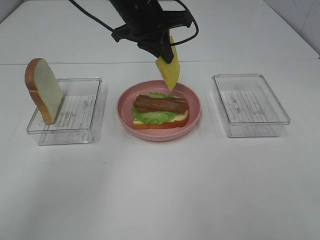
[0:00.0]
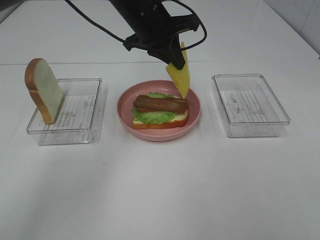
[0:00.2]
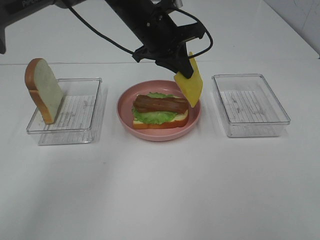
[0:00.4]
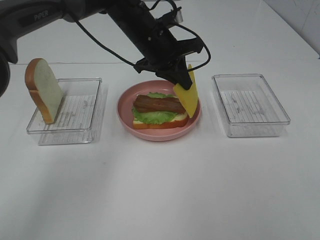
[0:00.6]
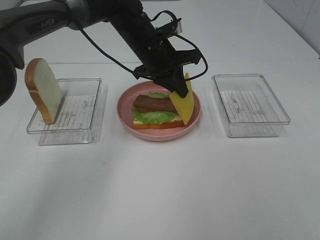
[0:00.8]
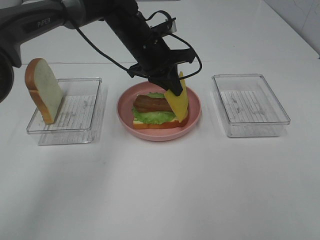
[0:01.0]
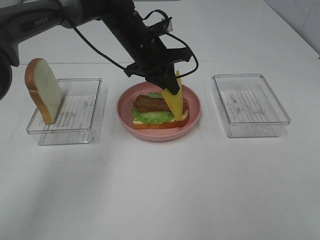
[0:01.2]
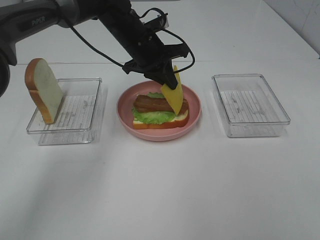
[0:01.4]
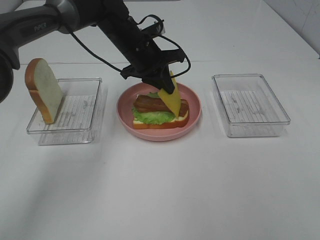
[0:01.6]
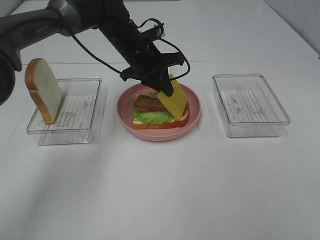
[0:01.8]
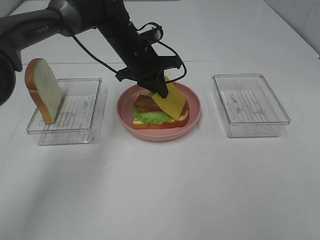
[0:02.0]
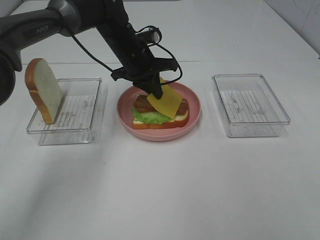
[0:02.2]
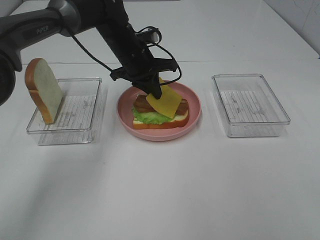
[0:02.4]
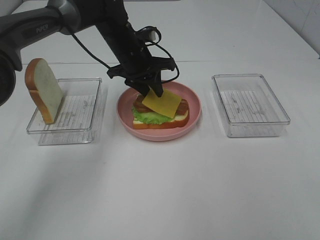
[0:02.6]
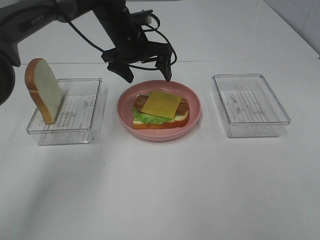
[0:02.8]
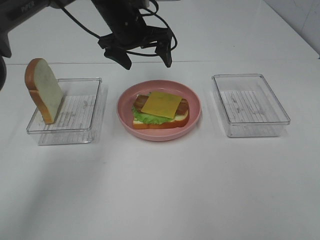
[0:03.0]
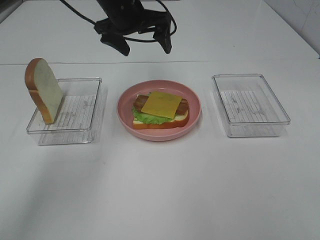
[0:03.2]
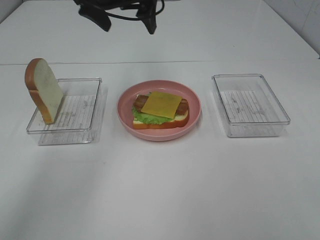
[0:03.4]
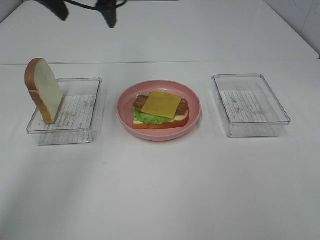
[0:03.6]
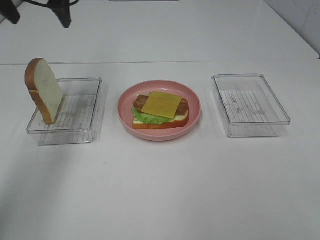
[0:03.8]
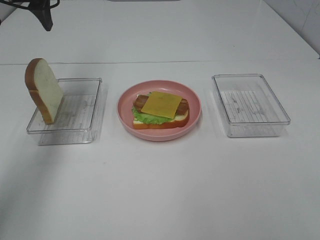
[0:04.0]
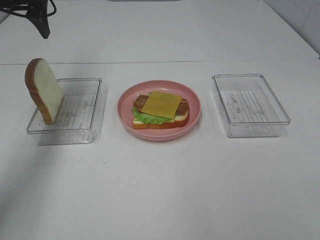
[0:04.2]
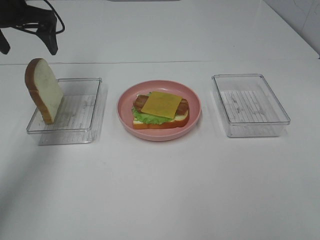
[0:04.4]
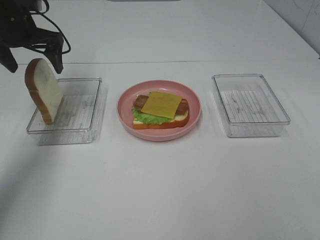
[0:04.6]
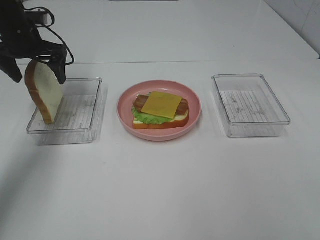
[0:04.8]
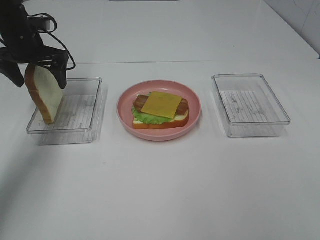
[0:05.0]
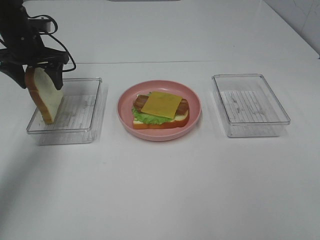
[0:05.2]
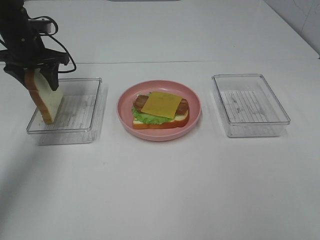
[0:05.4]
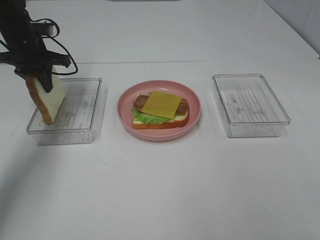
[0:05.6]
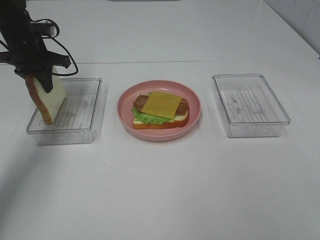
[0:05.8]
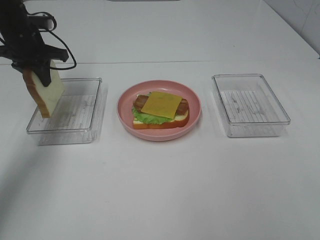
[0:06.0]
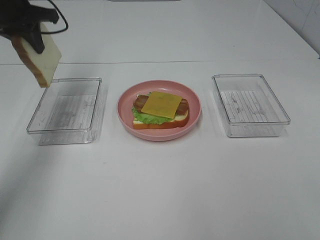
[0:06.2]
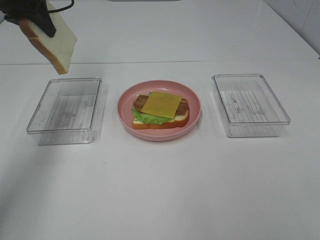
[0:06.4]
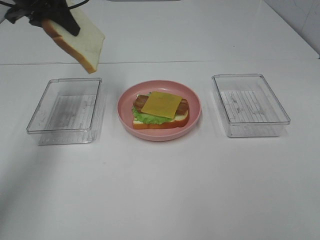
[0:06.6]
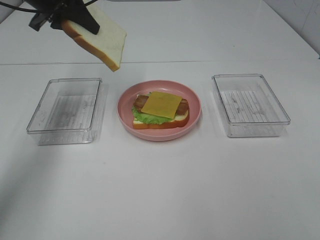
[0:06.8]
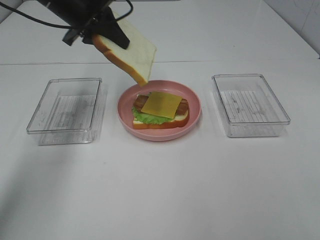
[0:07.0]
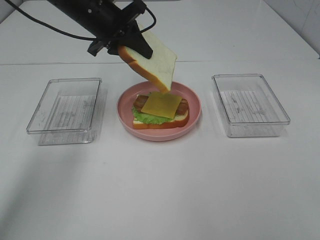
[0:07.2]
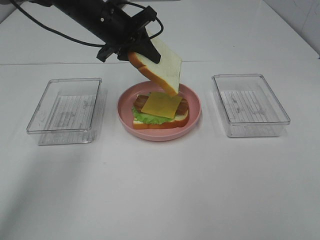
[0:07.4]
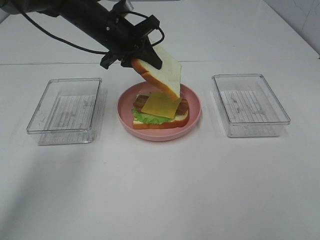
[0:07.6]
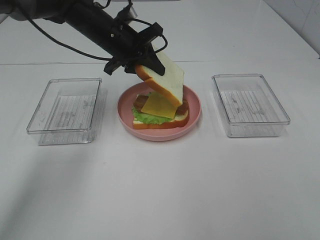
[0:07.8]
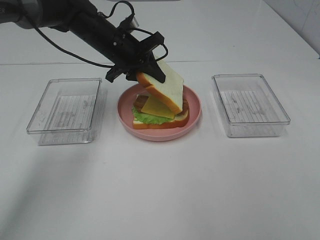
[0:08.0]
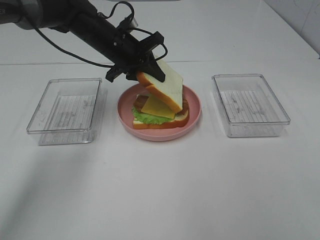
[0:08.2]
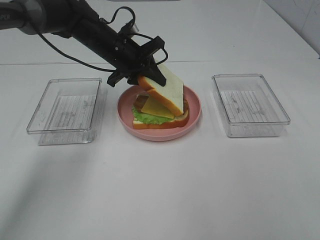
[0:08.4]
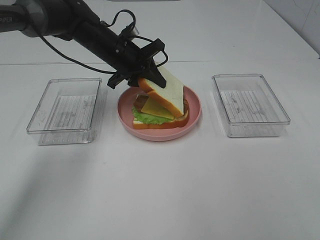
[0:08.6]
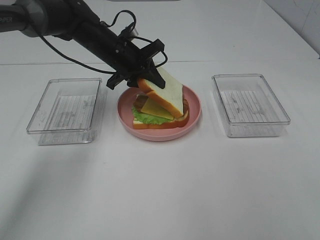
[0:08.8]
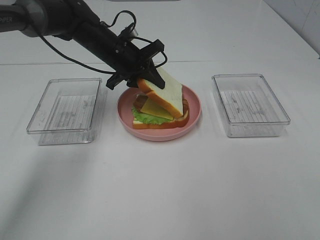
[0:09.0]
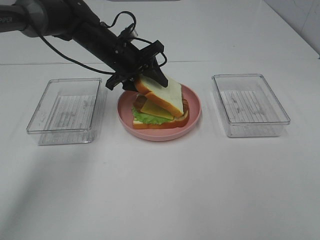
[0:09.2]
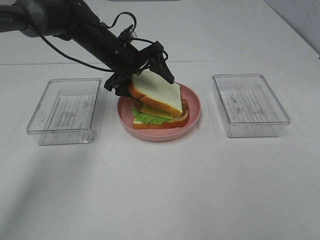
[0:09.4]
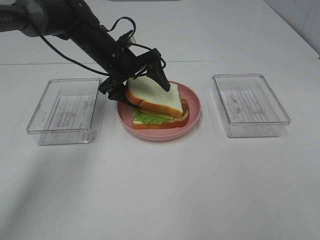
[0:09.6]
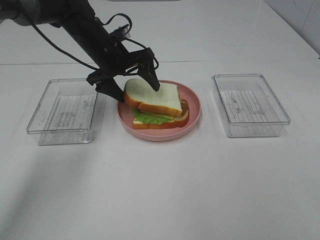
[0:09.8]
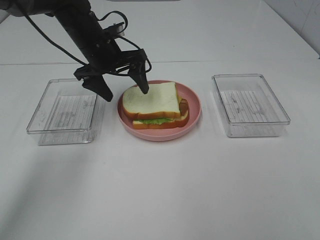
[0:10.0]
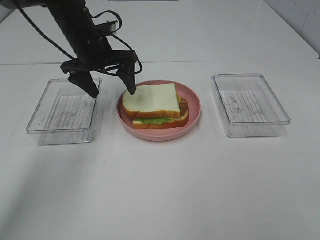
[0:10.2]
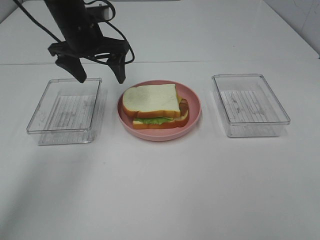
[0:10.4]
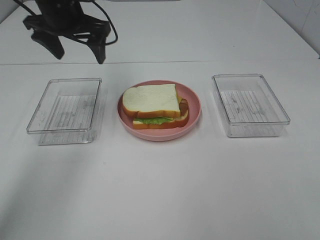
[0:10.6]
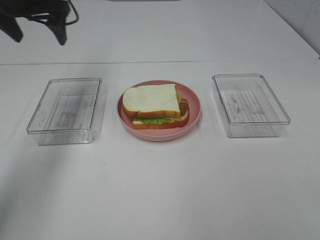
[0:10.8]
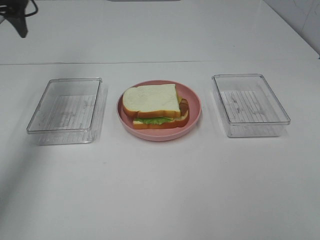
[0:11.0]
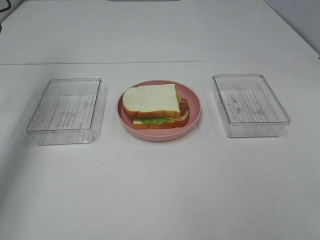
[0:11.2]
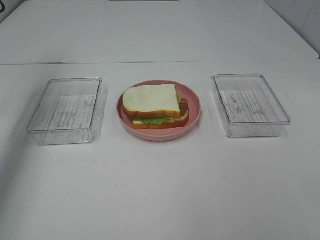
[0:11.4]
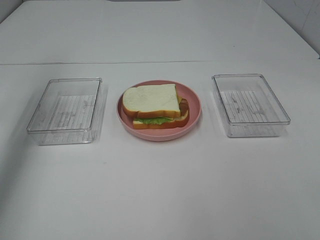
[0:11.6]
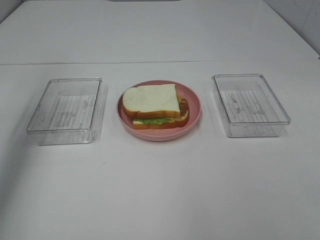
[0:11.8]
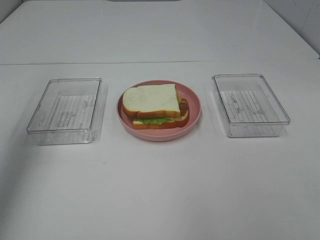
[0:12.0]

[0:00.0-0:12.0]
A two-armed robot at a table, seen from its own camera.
Task of the whole recording: Make sandwiches.
Step, 0:00.0 to 0:03.0: Left hand:place the cheese slice on top of the bacon.
Step, 0:03.2 to 0:05.6: Left hand:grab the bread slice.
Step, 0:05.8 to 0:10.0: Left hand:place the bread slice on the cheese slice.
0:00.0 to 0:01.6: The left gripper heads downward, covering some 10 cm.
0:01.6 to 0:03.0: The left gripper moves upward, some 5 cm, and opens.
0:03.0 to 0:04.4: The left gripper heads to the left, covering about 20 cm.
0:04.4 to 0:06.0: The left gripper is displaced downward by some 5 cm, and closes.
0:06.0 to 0:07.6: The left gripper moves to the right, approximately 15 cm.
0:07.6 to 0:09.0: The grippers move only a little.
0:09.0 to 0:10.4: The left gripper is displaced upward and to the left by approximately 10 cm, and opens up.
0:10.4 to 0:12.0: The left gripper heads to the left, backward and upward, covering some 30 cm.

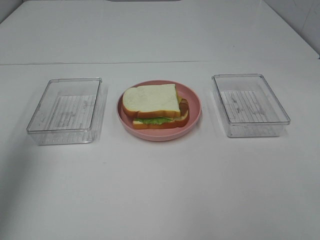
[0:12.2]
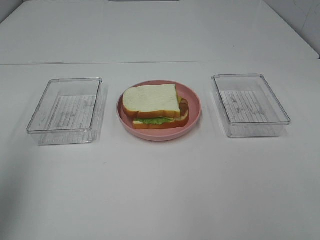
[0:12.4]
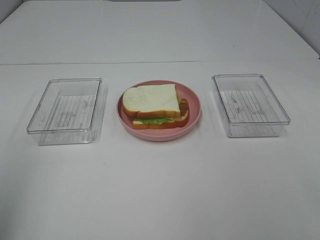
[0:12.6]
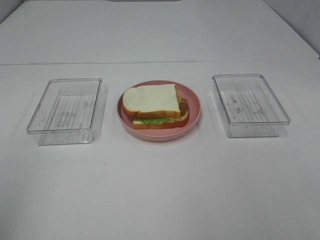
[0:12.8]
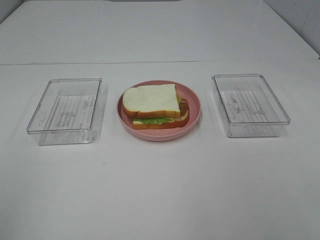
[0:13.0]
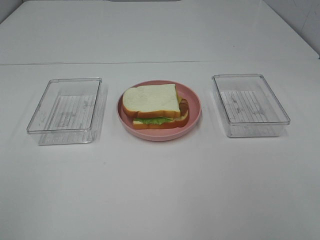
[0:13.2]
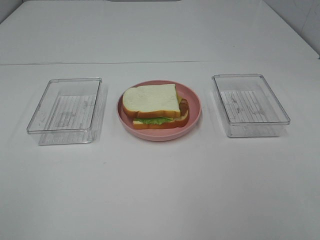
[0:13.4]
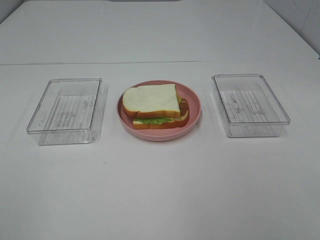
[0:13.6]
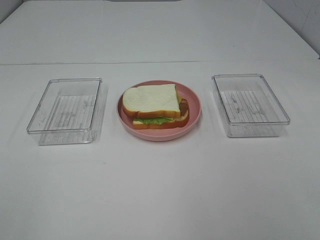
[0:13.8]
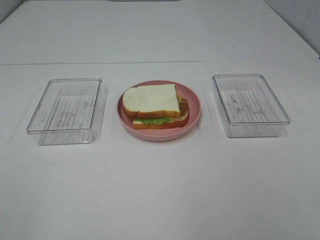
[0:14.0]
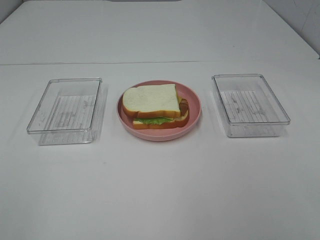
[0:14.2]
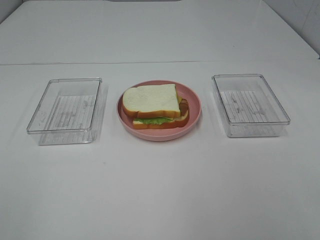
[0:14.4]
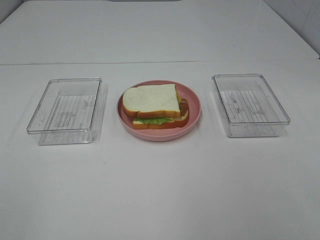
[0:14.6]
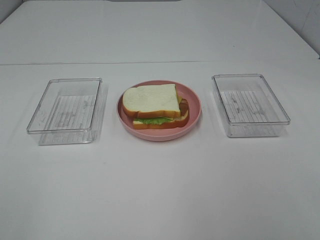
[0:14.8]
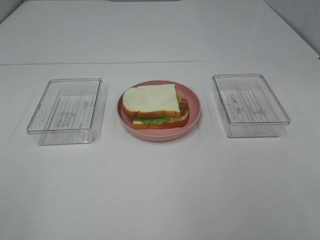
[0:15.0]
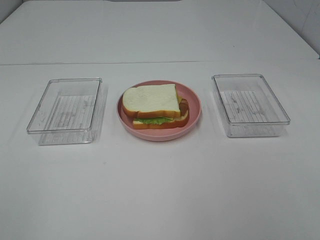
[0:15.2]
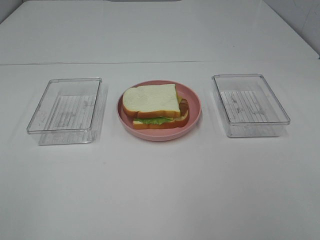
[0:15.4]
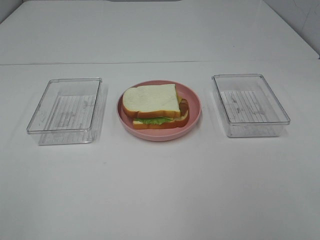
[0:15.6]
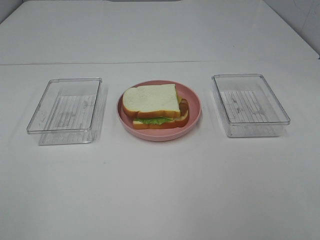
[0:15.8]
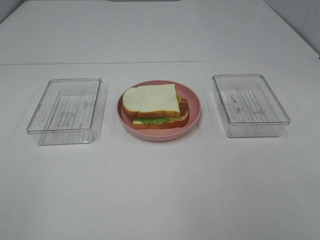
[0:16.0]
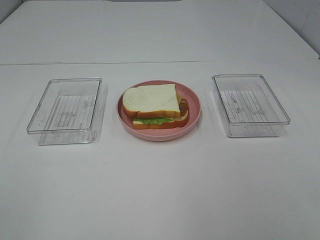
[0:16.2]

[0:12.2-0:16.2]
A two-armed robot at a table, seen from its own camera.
Task of the whole recording: Make sandwiches.
0:12.2 to 0:13.6: The left gripper shifts about 25 cm backward.
0:14.8 to 0:16.2: Neither gripper changes place.

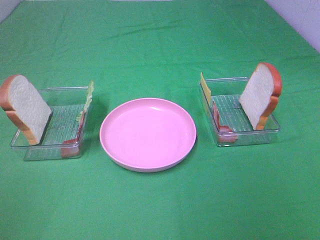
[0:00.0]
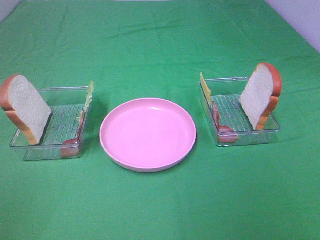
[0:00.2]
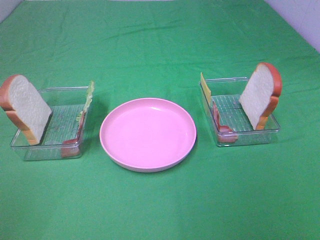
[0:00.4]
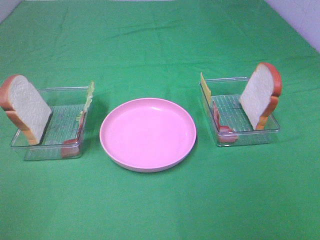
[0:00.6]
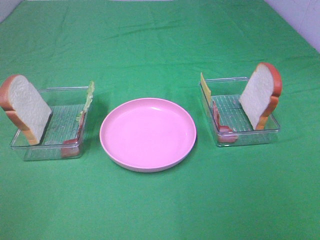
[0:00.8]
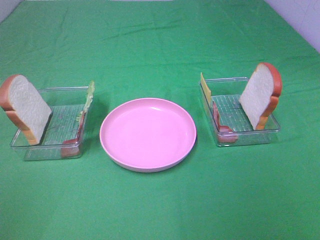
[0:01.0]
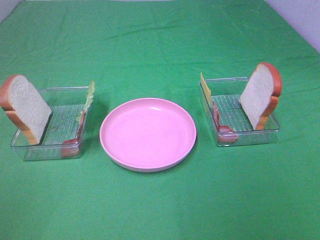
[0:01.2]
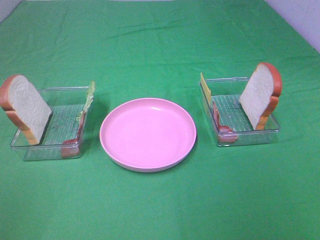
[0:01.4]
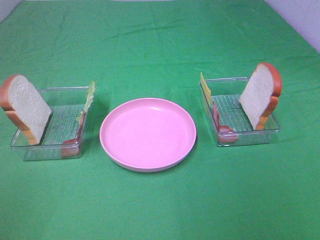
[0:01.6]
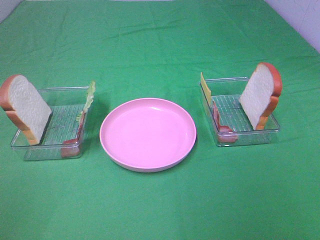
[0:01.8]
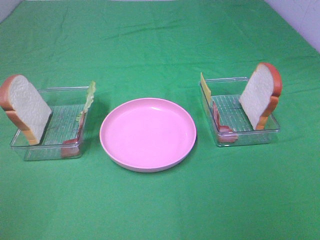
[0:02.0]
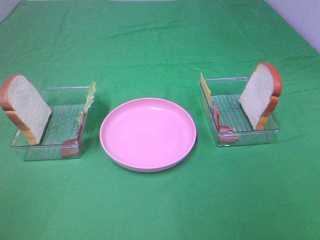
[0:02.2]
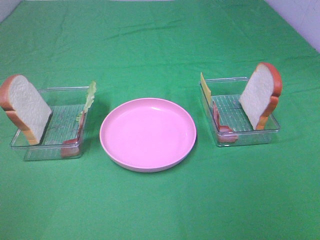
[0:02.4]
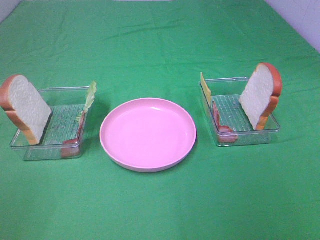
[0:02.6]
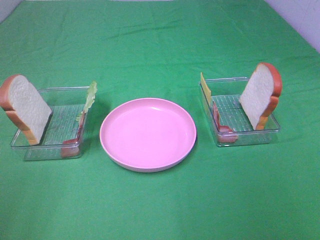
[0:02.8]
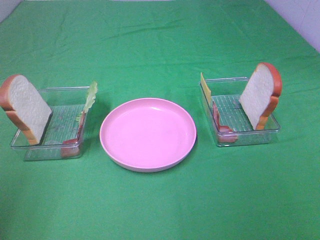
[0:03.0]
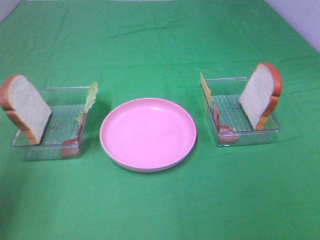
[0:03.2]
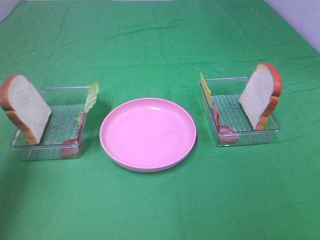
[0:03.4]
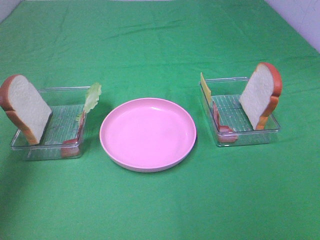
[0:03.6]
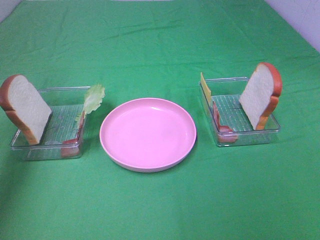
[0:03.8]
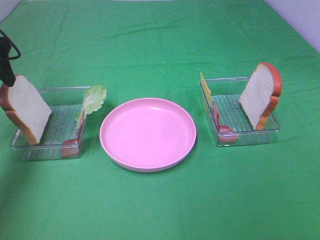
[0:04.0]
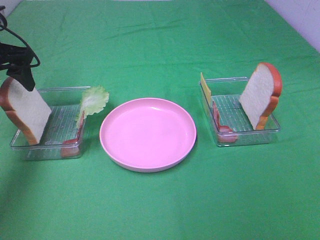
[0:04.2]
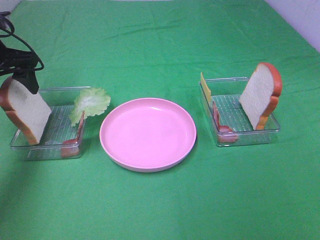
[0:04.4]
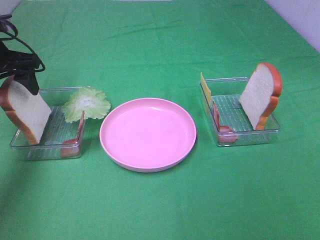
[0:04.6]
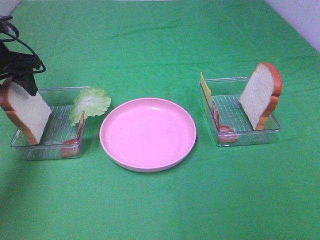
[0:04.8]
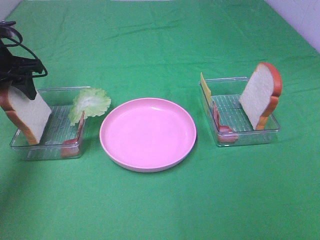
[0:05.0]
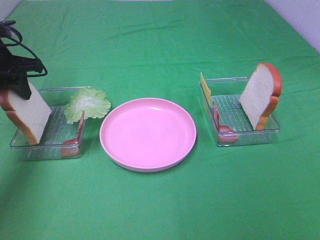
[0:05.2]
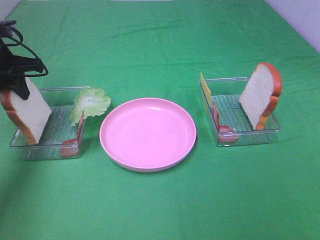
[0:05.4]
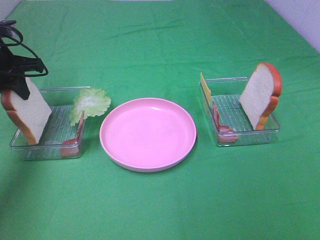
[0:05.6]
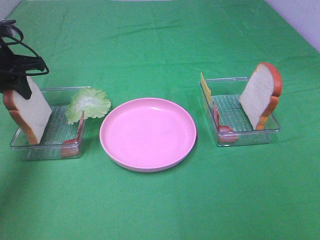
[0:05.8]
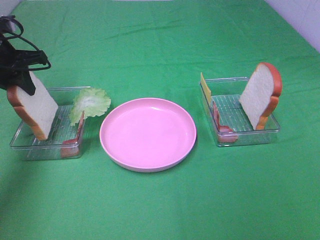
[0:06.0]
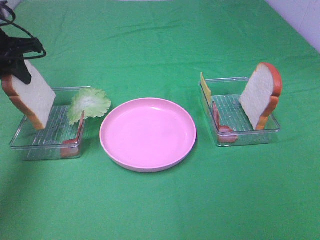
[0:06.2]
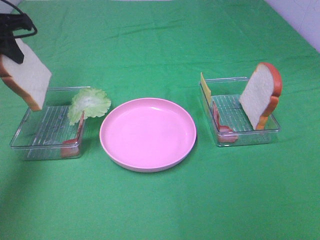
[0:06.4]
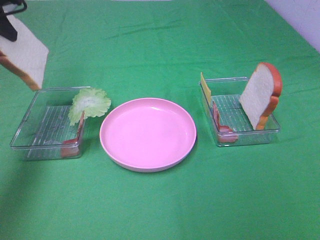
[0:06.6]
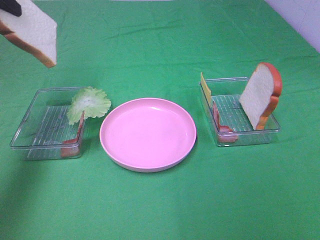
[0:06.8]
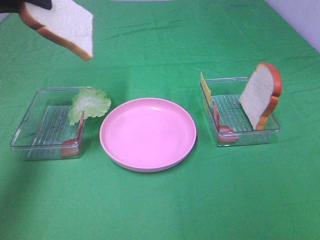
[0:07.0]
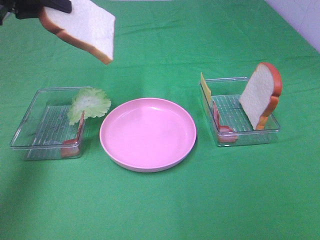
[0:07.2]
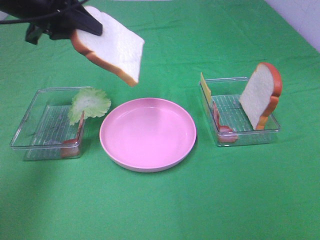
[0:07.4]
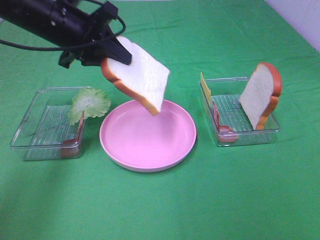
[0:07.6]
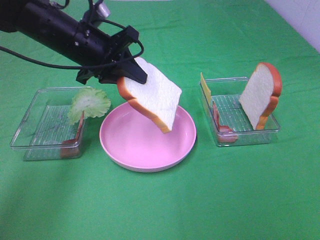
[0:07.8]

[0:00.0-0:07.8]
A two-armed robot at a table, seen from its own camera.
Task of the whole recording: Make sandwiches.
Step, 0:00.0 to 0:06.0: Left hand:grab the bread slice.
0:00.0 to 0:01.6: Both grippers stay about where they are.
0:01.6 to 0:03.2: The left gripper shifts about 15 cm forward.
0:03.2 to 0:04.6: The left gripper travels forward and downward by approximately 25 cm.
0:04.6 to 0:06.2: The left gripper closes its fingers.
0:06.2 to 0:07.8: The left gripper travels to the right by roughly 15 cm.
